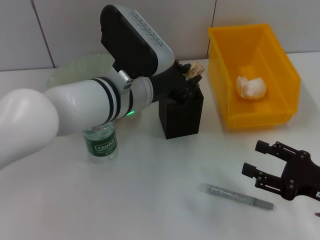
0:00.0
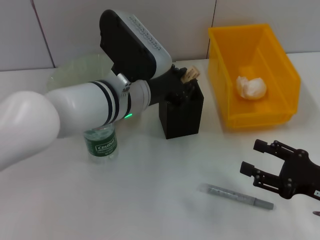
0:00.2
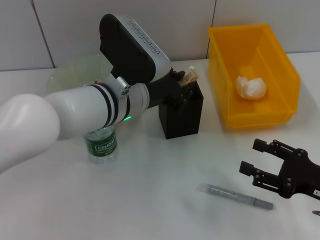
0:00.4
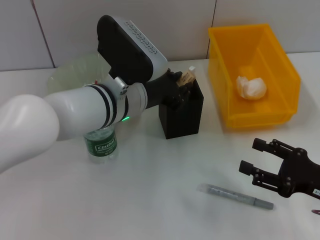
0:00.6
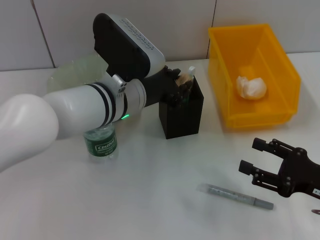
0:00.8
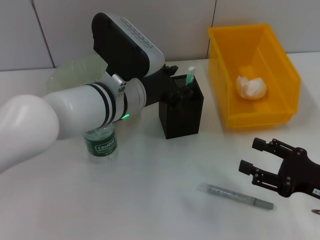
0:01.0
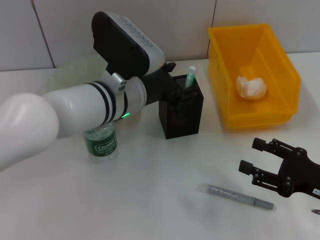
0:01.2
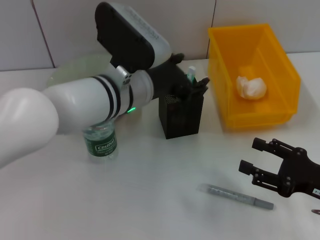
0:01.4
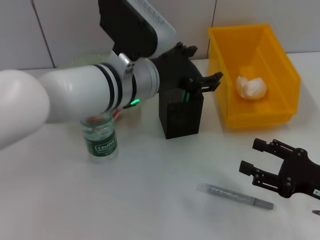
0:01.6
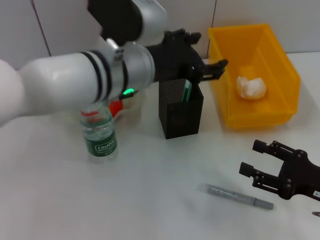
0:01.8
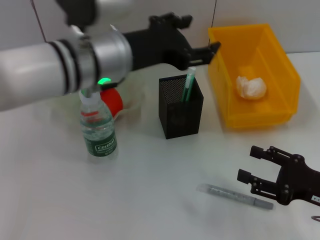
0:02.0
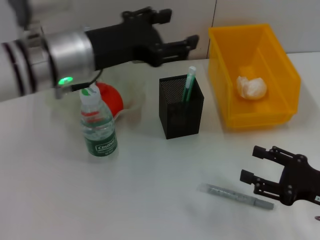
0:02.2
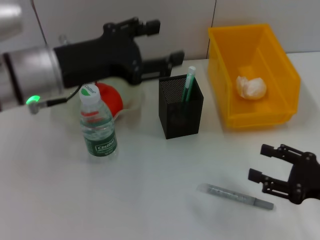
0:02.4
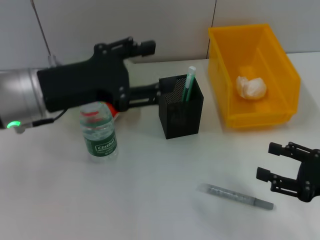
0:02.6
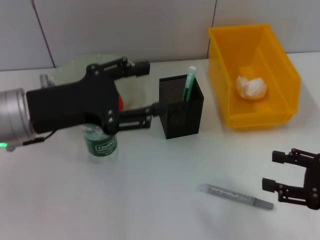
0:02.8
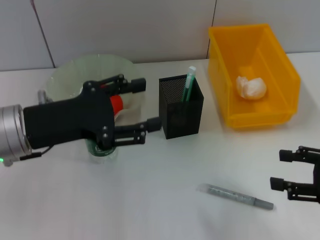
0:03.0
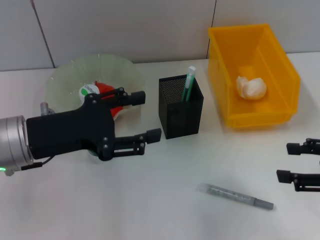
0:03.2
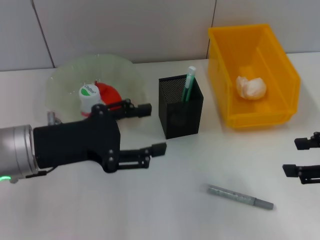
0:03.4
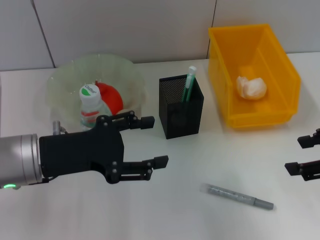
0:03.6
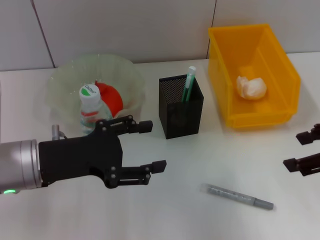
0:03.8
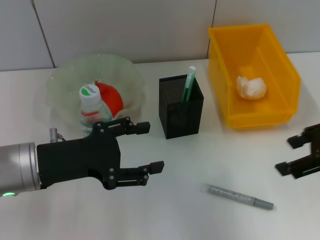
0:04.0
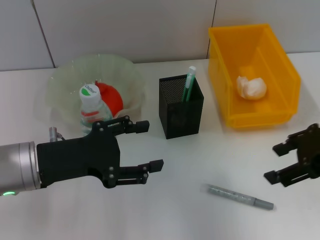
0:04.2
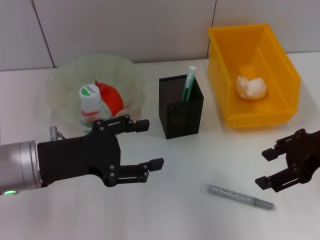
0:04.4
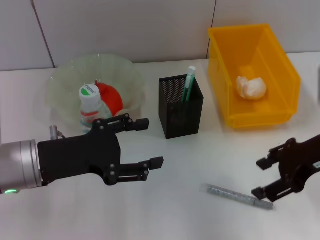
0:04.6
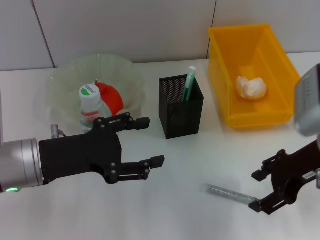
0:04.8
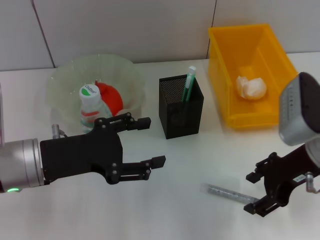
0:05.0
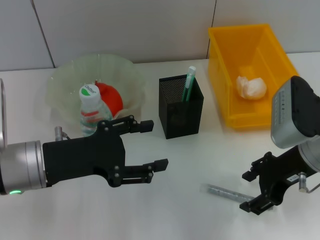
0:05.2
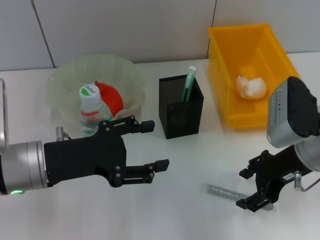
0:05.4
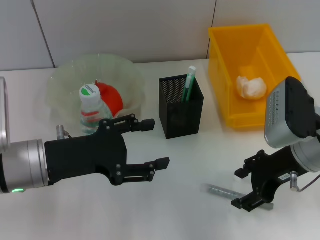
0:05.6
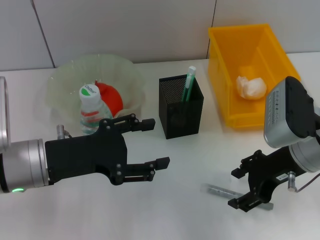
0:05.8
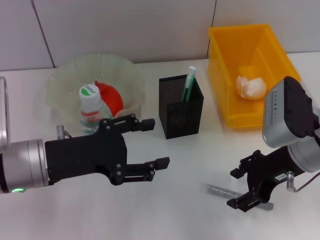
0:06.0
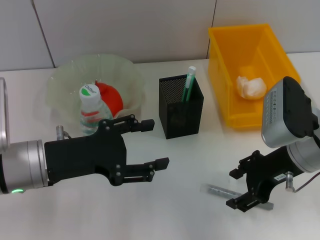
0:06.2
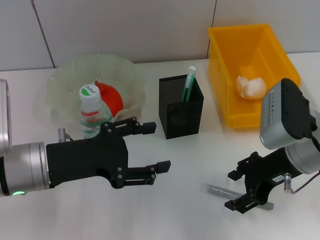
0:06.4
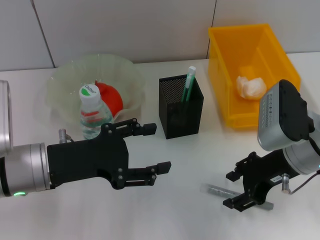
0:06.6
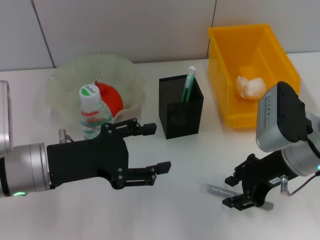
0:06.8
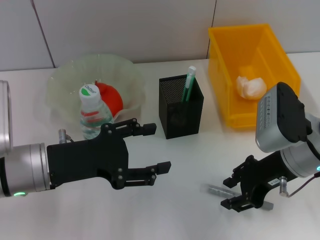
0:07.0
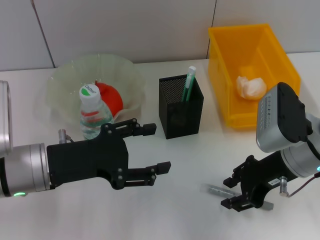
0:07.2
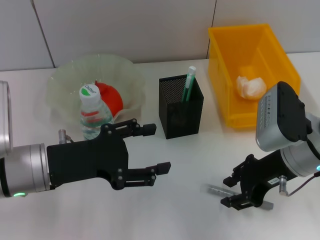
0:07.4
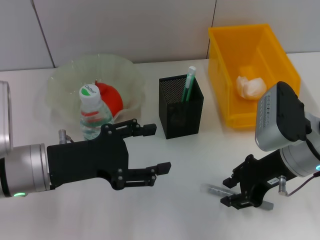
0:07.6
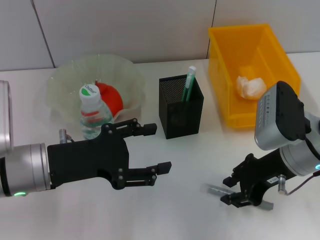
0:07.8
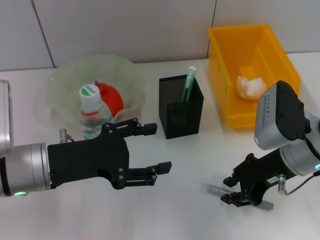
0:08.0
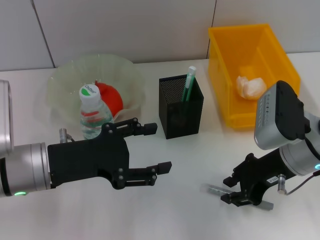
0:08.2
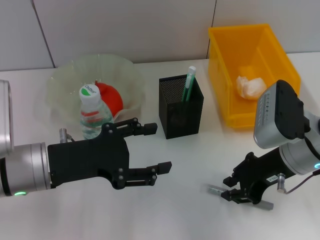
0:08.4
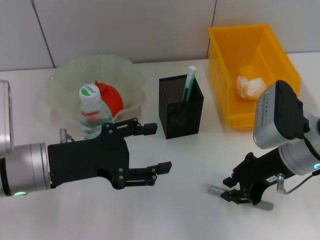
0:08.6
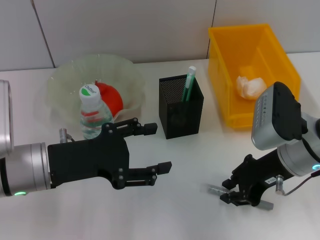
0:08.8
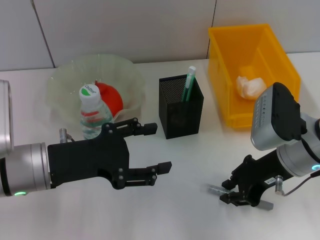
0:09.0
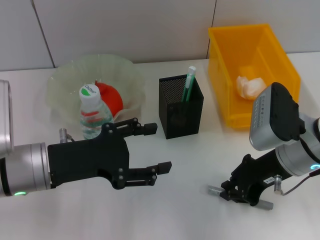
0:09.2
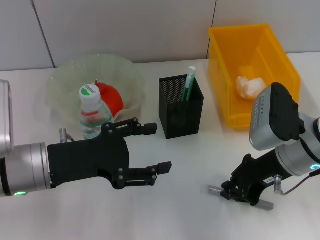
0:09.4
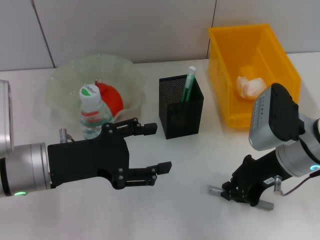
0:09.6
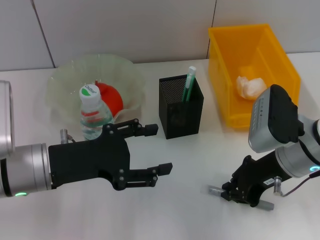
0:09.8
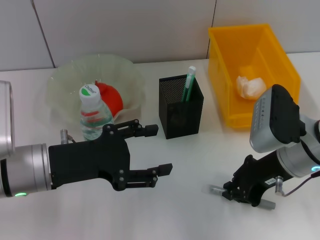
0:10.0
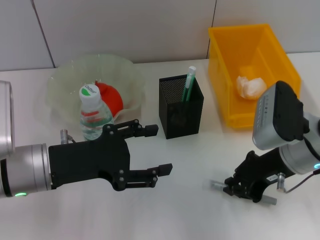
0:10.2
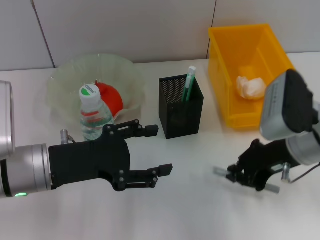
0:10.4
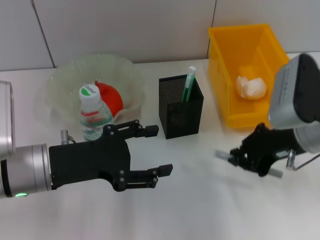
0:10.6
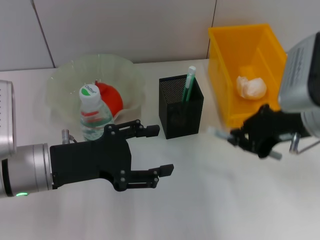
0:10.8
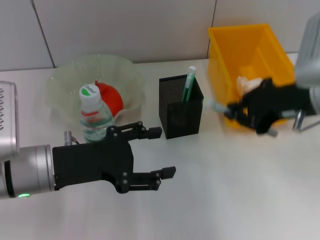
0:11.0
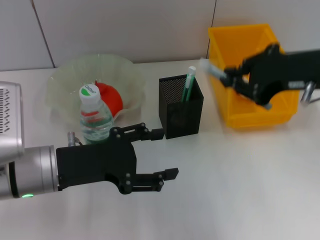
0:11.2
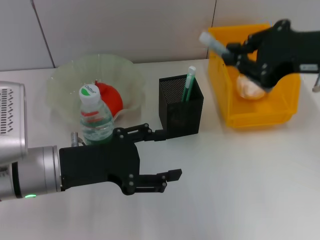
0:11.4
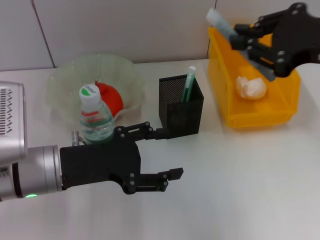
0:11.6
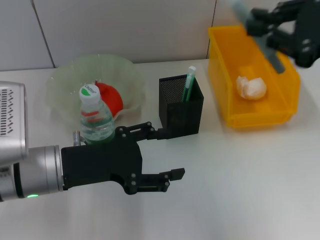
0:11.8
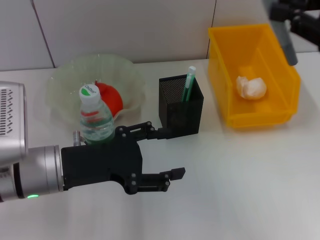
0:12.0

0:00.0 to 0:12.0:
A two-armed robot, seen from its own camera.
Step, 0:01.2 to 0:09.8: Grab the gray glue with the right hand.
0:00.0 to 0:01.6: The left gripper opens its fingers.
0:01.6 to 0:03.0: The left gripper is displaced to the left by some 15 cm. Meanwhile the right gripper travels upward by some 5 cm.
0:03.0 to 0:04.4: The right gripper goes about 10 cm forward, upward and to the left.
0:04.4 to 0:06.0: The right gripper moves downward and to the left, about 10 cm.
0:06.0 to 0:07.6: The right gripper closes its fingers.
0:07.6 to 0:09.0: Both grippers stay put.
0:09.0 to 0:10.4: The grippers make only small movements.
0:10.4 to 0:12.0: The right gripper is displaced upward and to the right by roughly 15 cm.

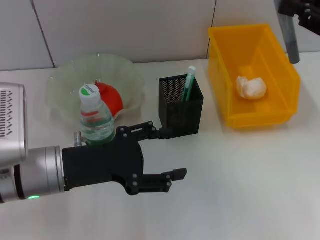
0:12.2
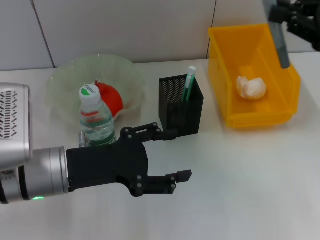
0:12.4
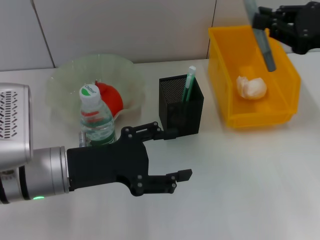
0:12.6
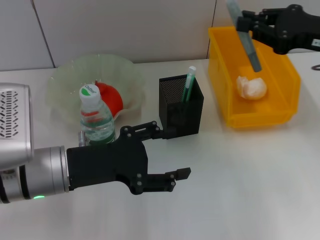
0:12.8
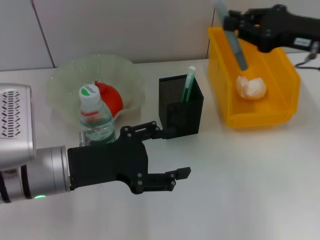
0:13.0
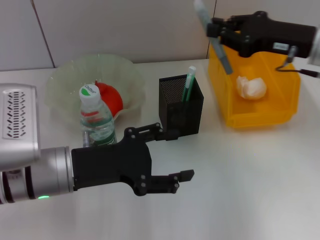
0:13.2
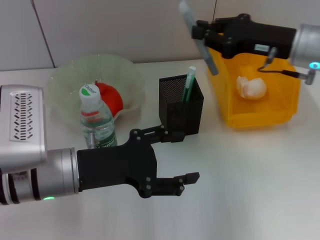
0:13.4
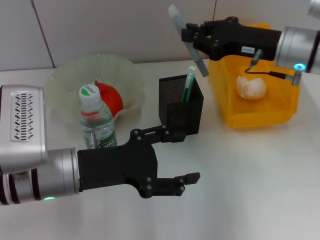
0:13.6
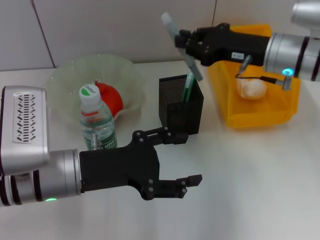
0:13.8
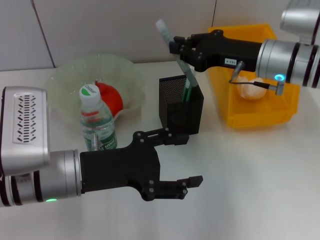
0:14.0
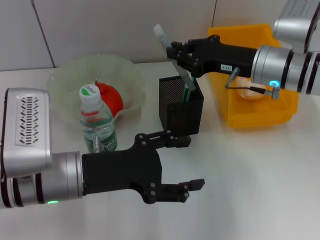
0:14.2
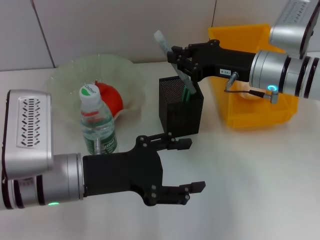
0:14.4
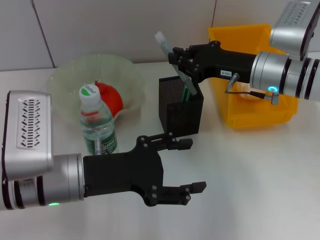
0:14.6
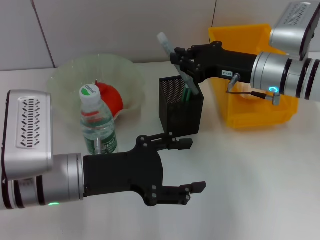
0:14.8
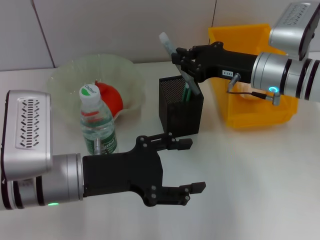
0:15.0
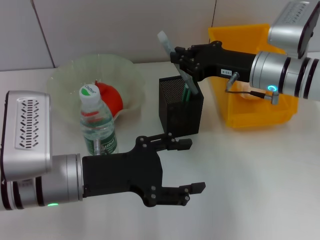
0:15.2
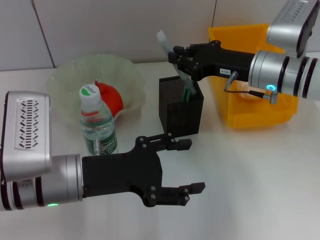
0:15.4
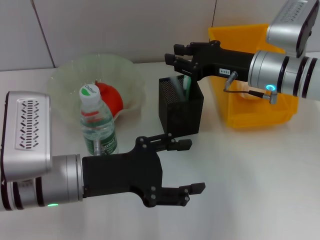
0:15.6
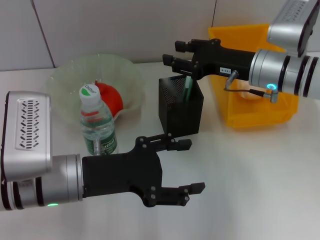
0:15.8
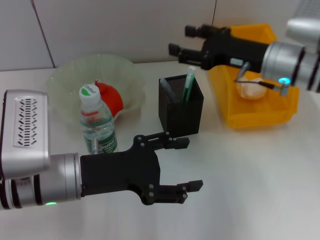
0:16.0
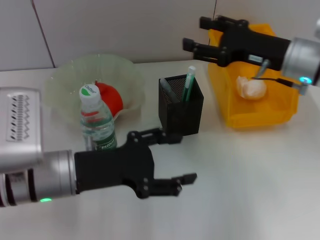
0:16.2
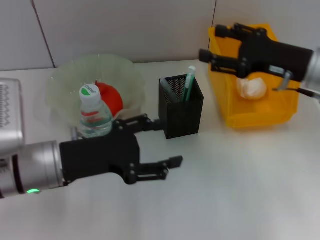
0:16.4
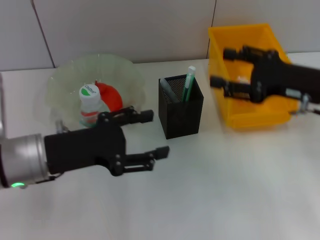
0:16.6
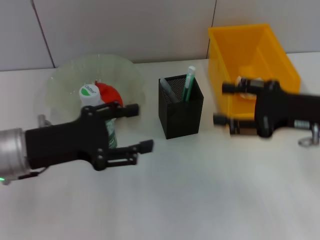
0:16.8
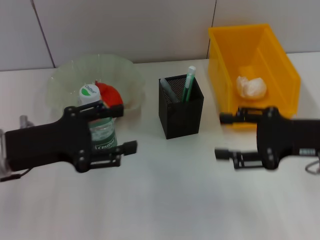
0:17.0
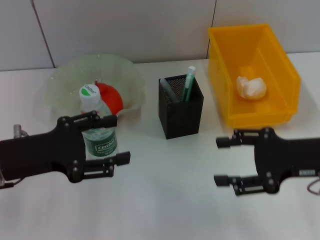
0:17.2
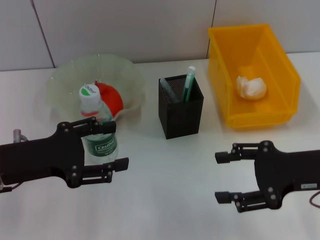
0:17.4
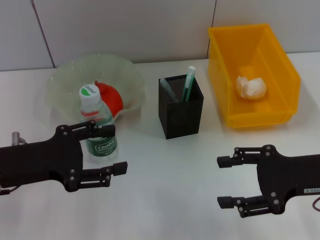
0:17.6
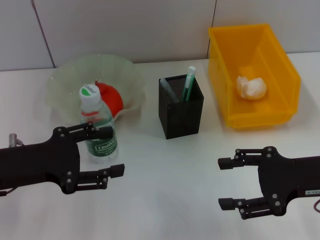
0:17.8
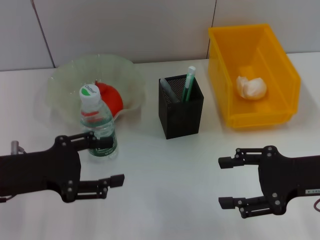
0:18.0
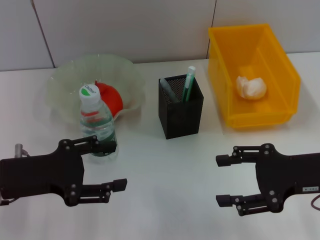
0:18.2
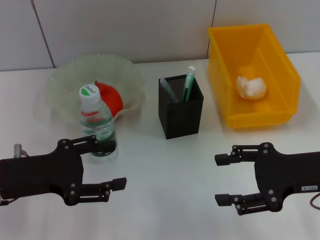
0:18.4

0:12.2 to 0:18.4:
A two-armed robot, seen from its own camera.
Step, 0:12.2 to 0:15.8: Place the gray glue into the pen holder with the right hand.
0:12.2 to 0:13.8: The right gripper heads to the left, forward and downward, covering about 15 cm.
0:13.8 to 0:15.4: There are only small adjustments of the grippers.
0:15.4 to 0:16.8: The left gripper shifts some 5 cm to the left; the right gripper heads backward and to the right, covering some 15 cm, and opens its fingers.
0:16.8 to 0:18.4: The right gripper shifts roughly 5 cm backward.

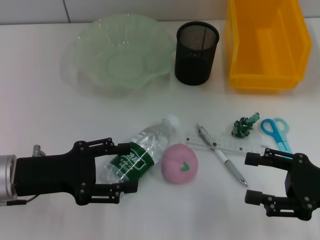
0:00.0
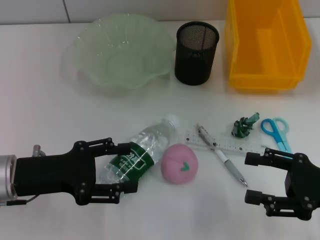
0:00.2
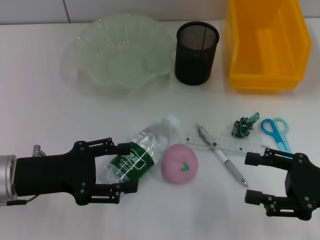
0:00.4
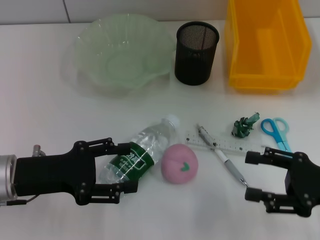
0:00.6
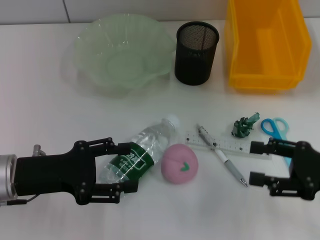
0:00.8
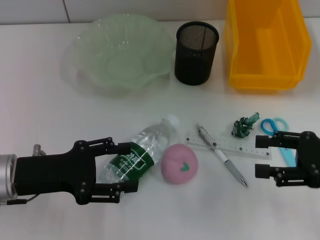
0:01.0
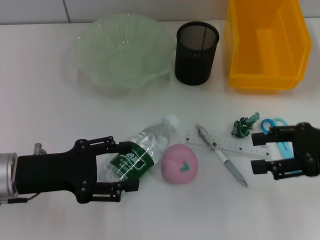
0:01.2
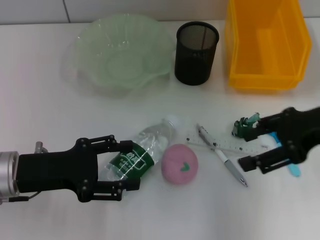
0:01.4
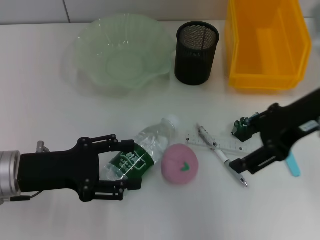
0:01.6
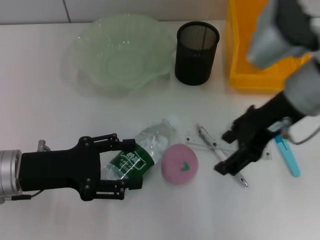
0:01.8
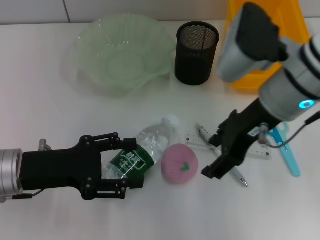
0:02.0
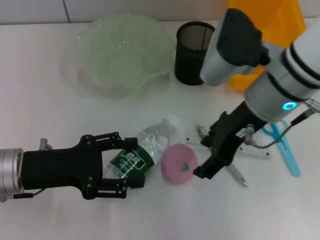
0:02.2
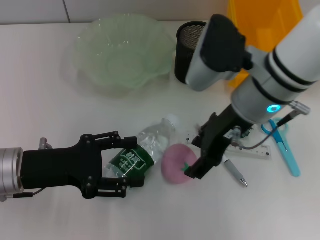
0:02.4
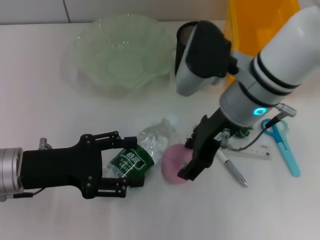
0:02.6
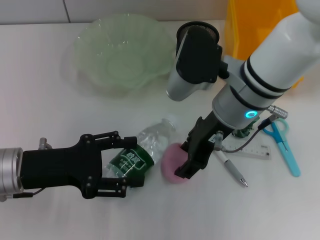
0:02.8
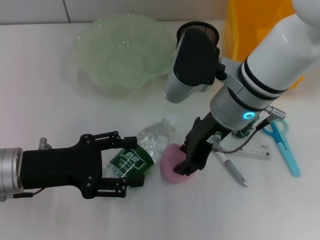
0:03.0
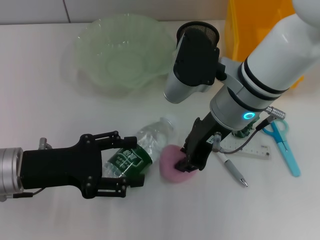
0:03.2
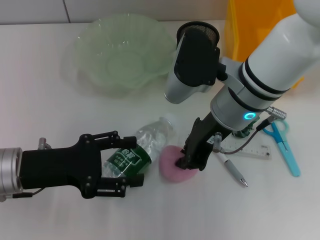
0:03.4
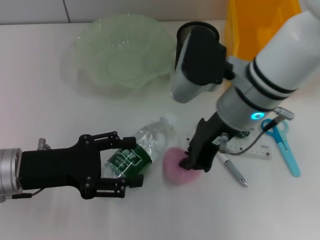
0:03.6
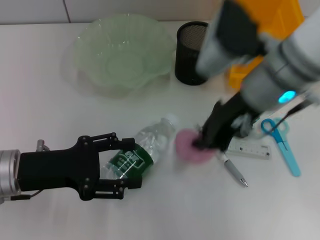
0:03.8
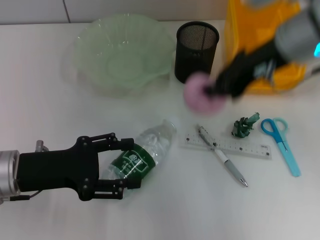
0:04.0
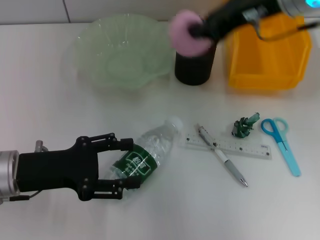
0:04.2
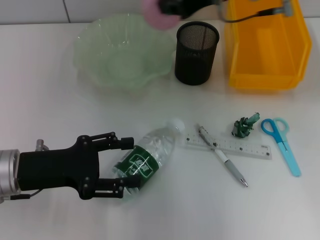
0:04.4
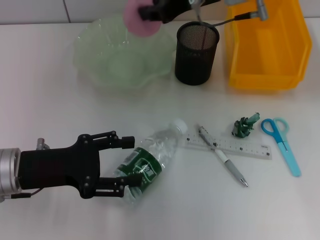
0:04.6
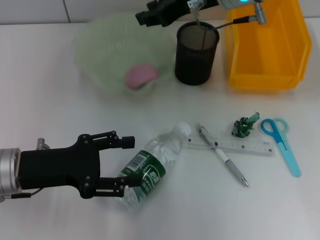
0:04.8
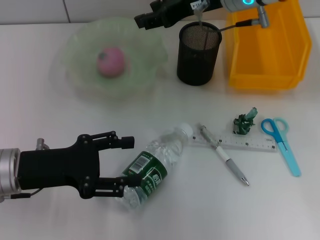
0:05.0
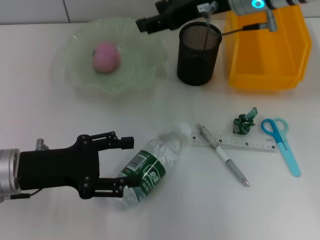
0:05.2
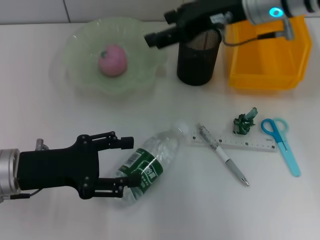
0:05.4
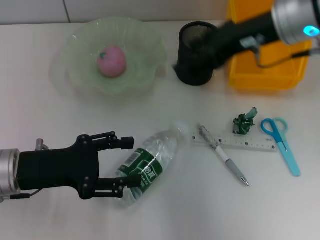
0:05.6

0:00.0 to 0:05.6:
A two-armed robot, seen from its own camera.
Step, 0:00.0 to 0:03.2: Grab the peach with the right hand.
Step, 0:03.6 to 0:05.0: Place the peach into the fruit bowl with the right hand.
0:00.0 to 0:01.4: The right gripper heads upward and forward, covering about 15 cm.
0:01.4 to 0:02.8: The right gripper moves to the left, roughly 15 cm.
0:02.8 to 0:04.2: The right gripper heads upward, to the right and forward, covering approximately 15 cm, and closes its fingers.
0:04.2 to 0:05.6: The right gripper opens up.
